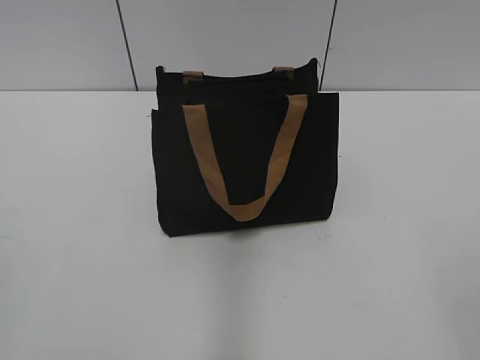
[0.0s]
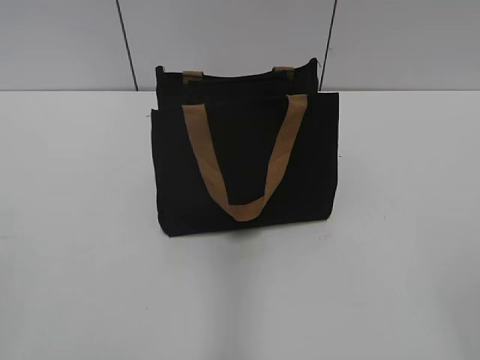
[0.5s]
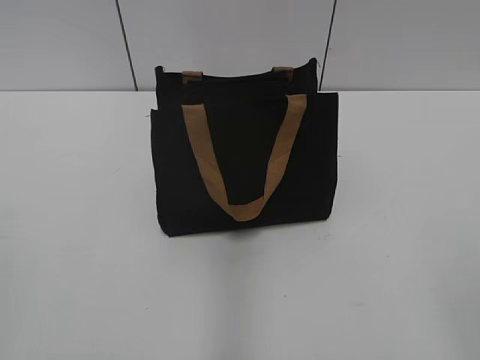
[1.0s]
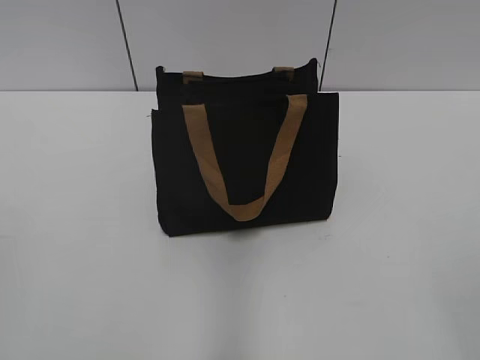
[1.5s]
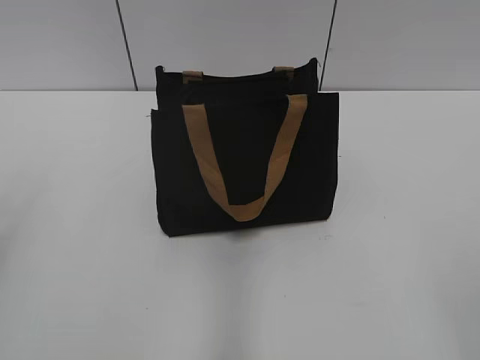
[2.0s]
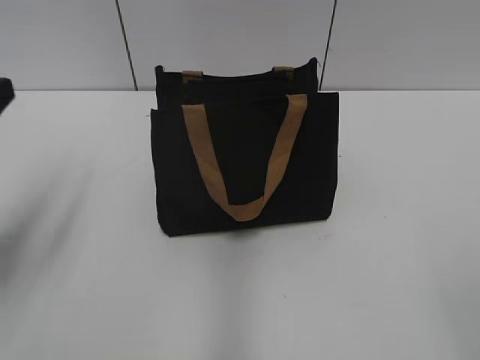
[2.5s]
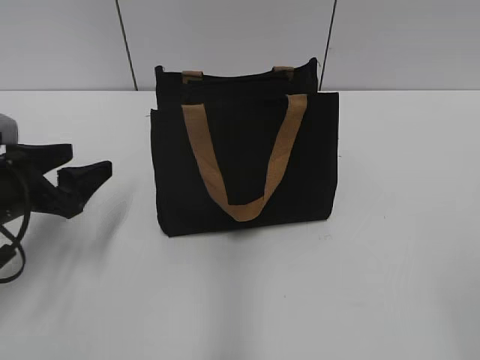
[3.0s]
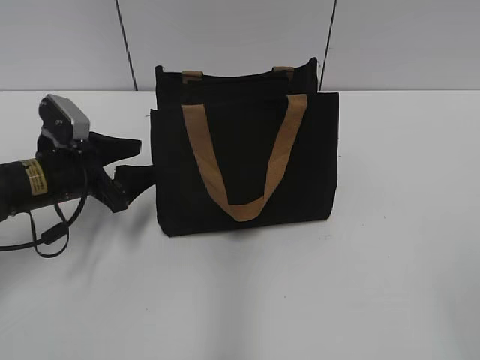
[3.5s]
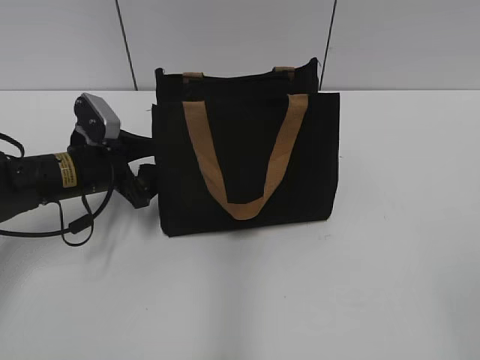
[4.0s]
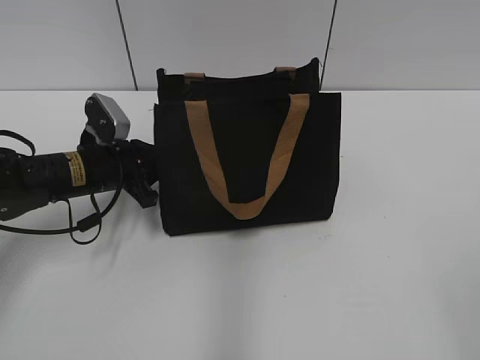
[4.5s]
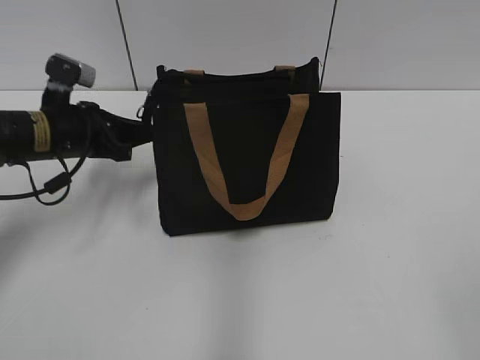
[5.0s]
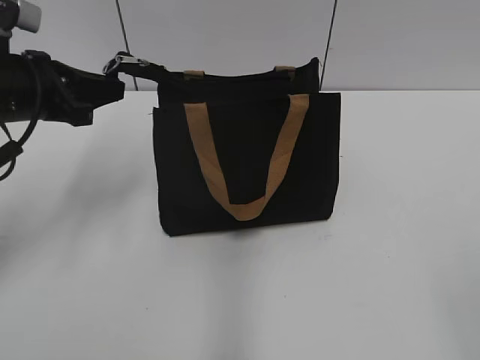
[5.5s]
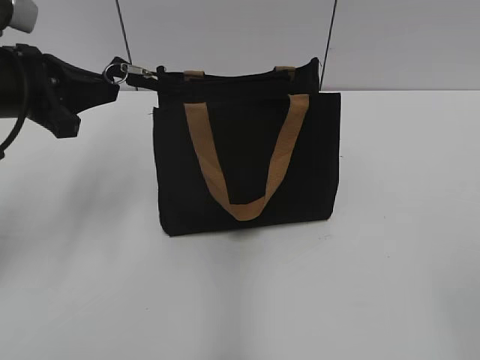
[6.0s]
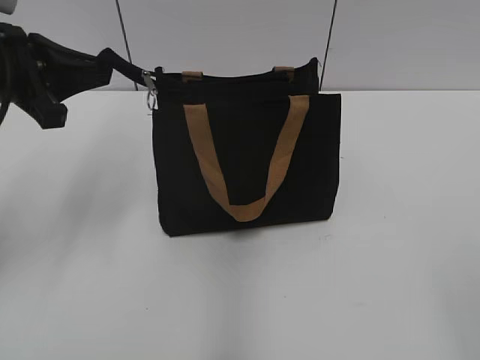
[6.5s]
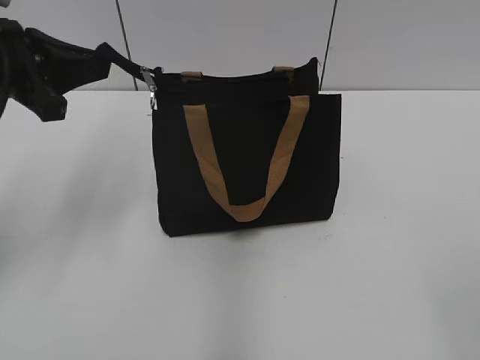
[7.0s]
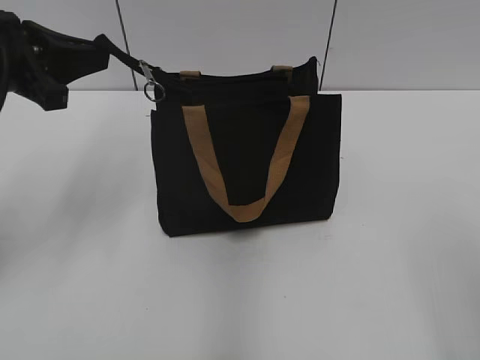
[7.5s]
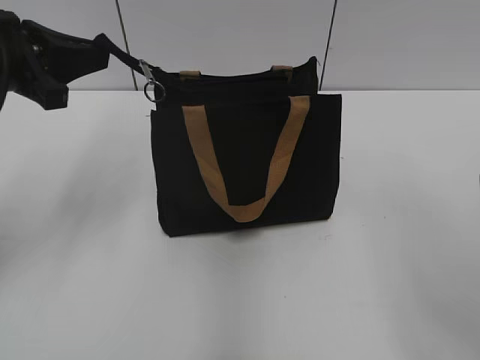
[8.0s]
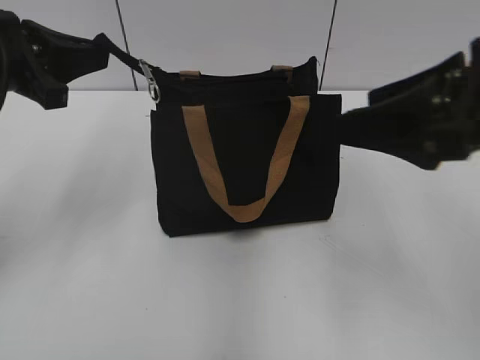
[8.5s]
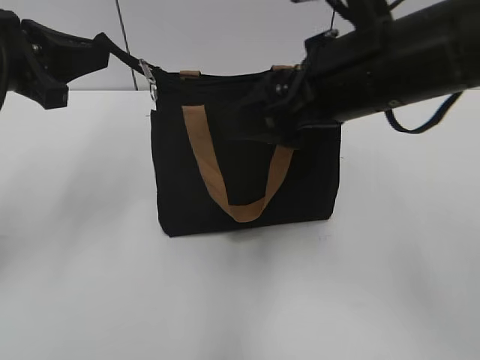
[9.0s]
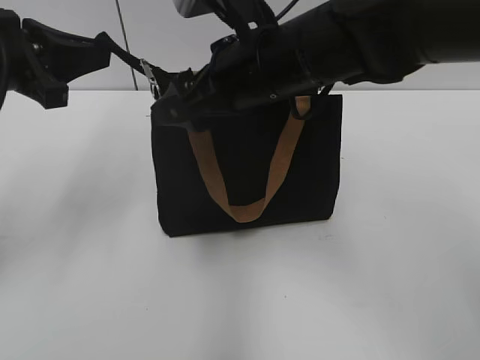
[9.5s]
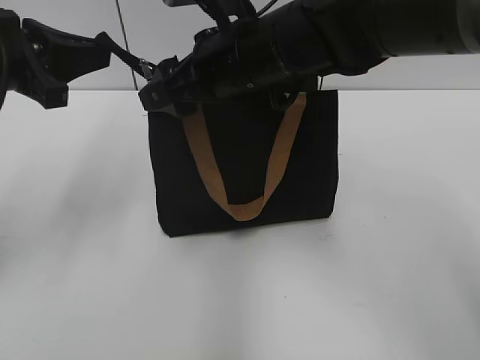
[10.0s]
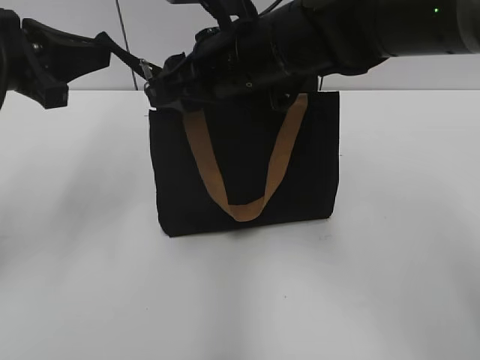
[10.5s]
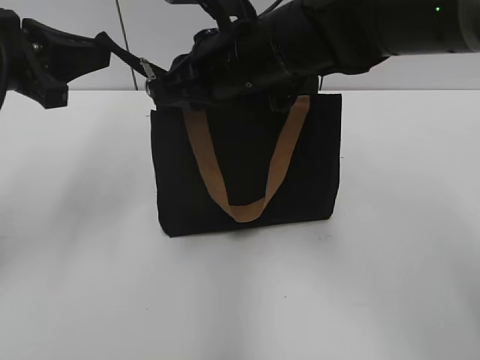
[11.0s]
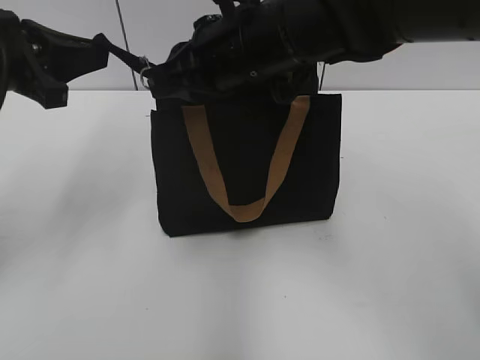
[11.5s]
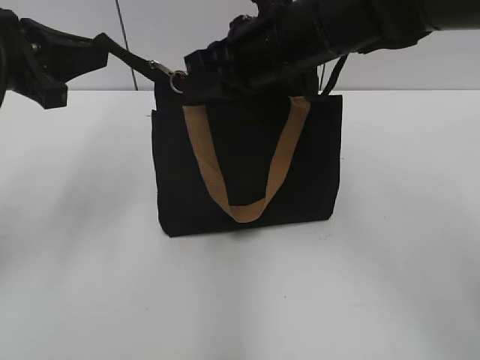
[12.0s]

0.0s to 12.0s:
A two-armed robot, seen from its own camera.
2.0s to 4.0s: The left gripper travels forward, downward and to the right by approximately 35 cm, and opens.
4.0s to 6.0s: The left gripper heads upward, covering some 15 cm, and closes up.
6.0s to 8.0s: The right gripper goes about 10 cm forward.
8.0s to 10.0s: The right gripper heads forward and to the left, covering approximately 35 cm.
10.0s to 12.0s: The right gripper closes.

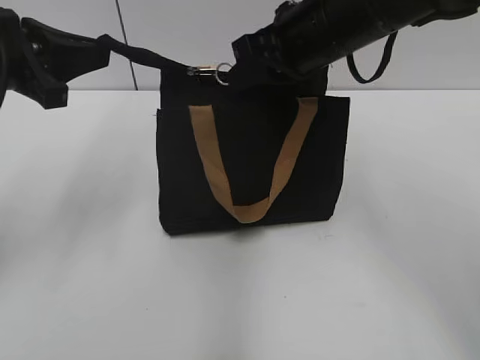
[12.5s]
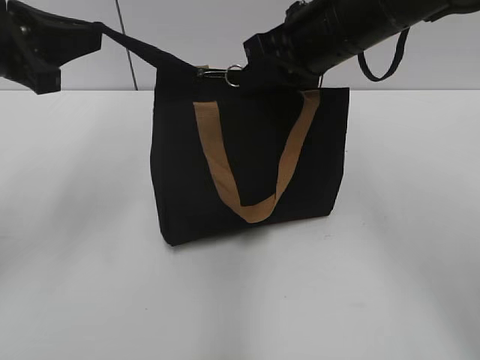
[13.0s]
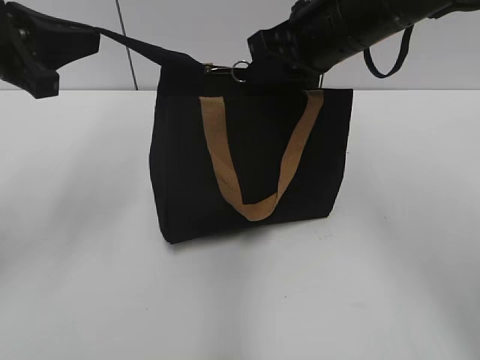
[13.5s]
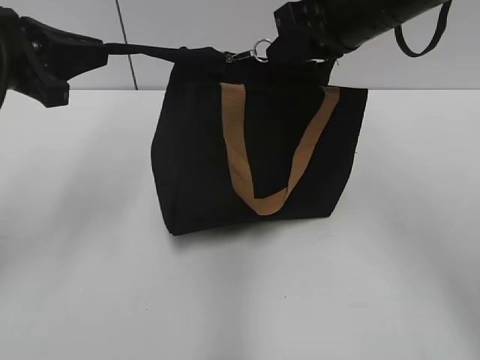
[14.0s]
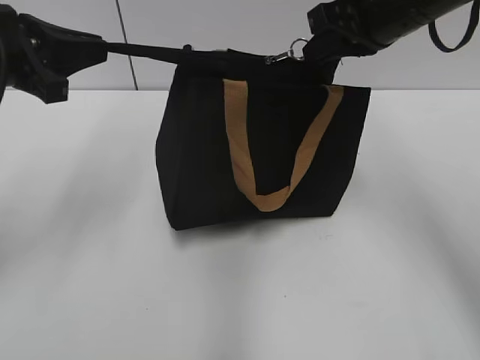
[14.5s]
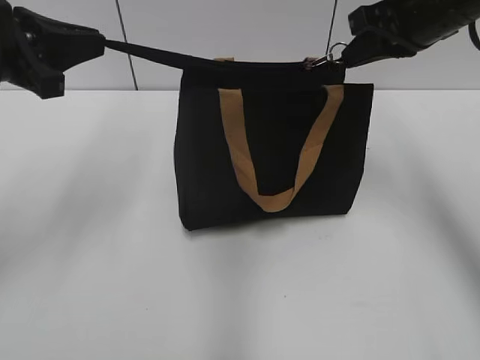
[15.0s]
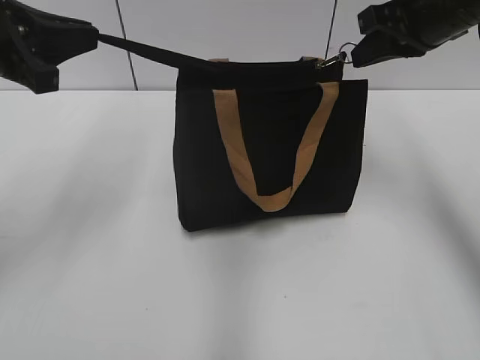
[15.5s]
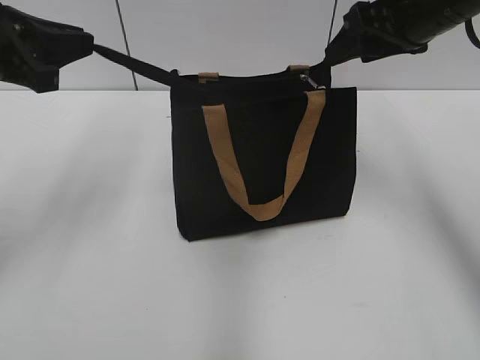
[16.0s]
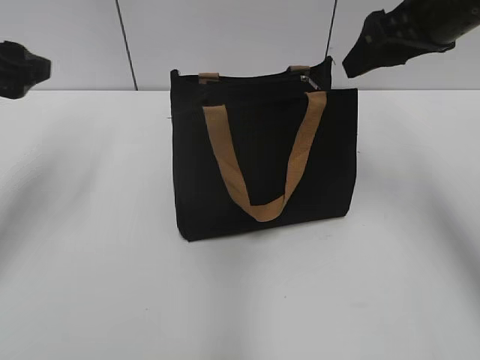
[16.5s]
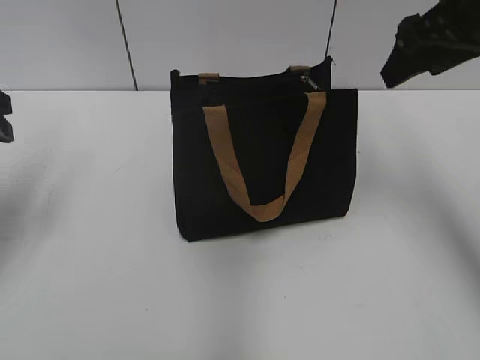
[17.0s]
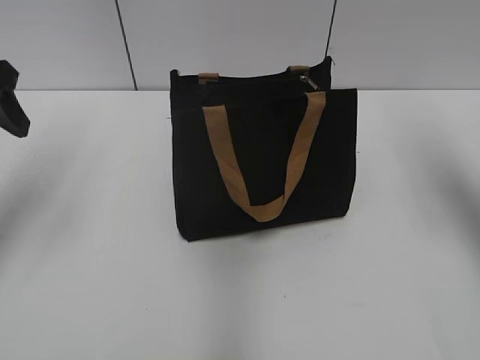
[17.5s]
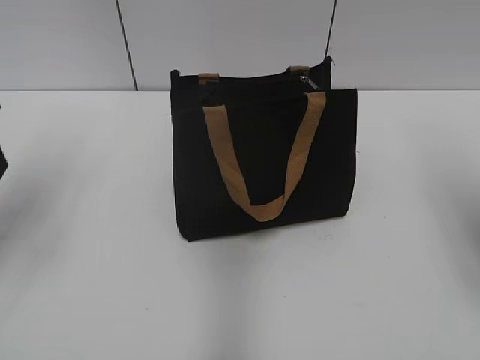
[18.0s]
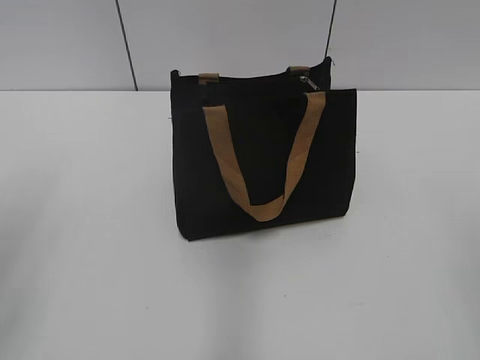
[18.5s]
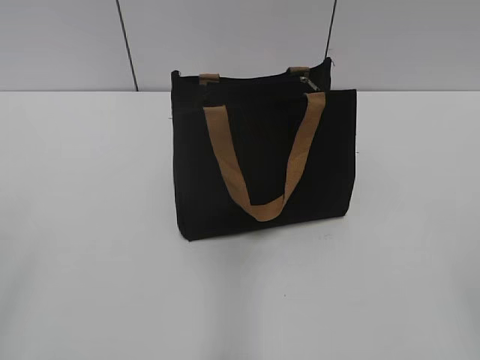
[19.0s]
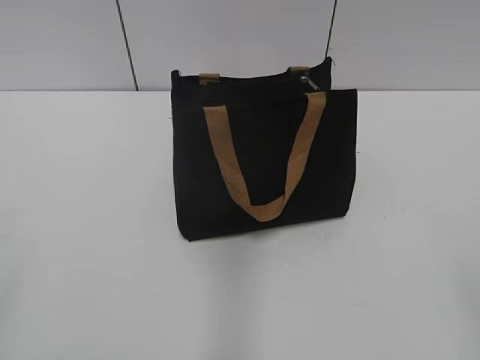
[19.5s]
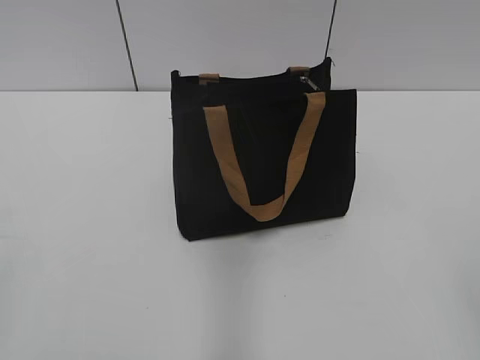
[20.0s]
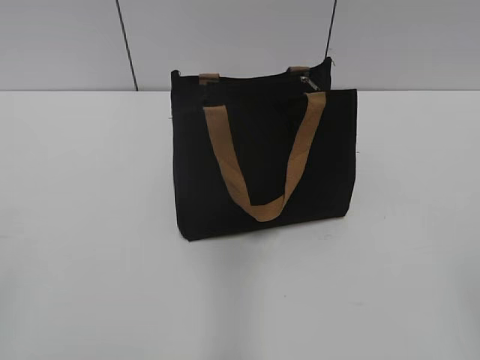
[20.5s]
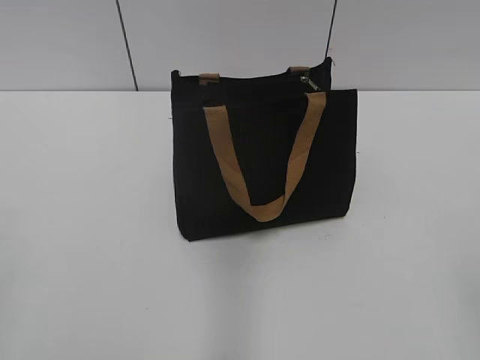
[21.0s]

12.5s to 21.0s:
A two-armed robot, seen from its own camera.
Step, 12.5s to 15.5s: Zip up the bag with your right hand.
12.5s to 14.5s: The right gripper moves to the right, approximately 5 cm.
14.5s to 16.5s: The right gripper opens up, while the left gripper opens up.
16.5s to 19.0s: The two grippers go roughly 30 cm backward.

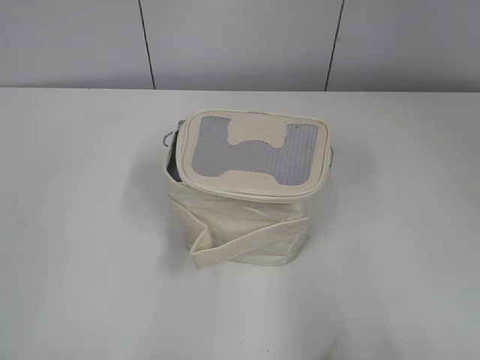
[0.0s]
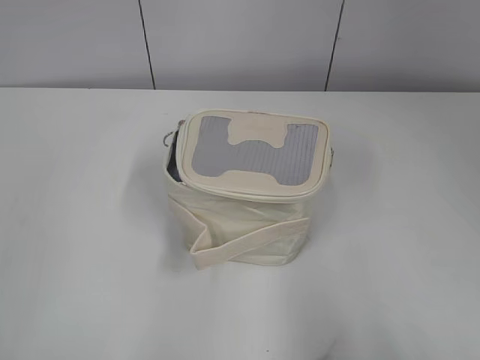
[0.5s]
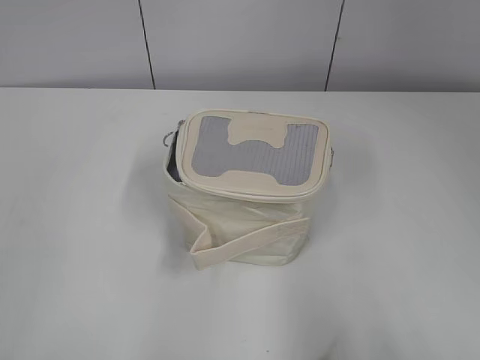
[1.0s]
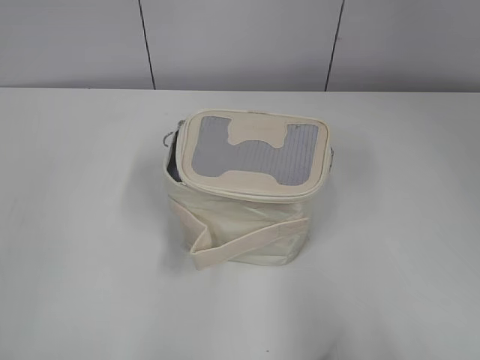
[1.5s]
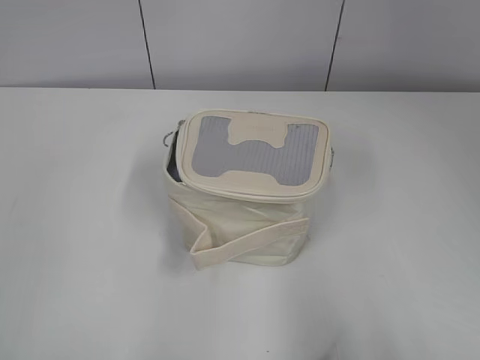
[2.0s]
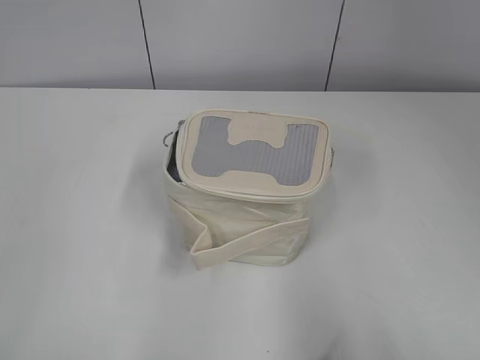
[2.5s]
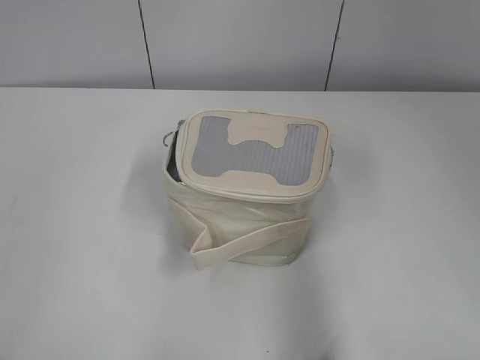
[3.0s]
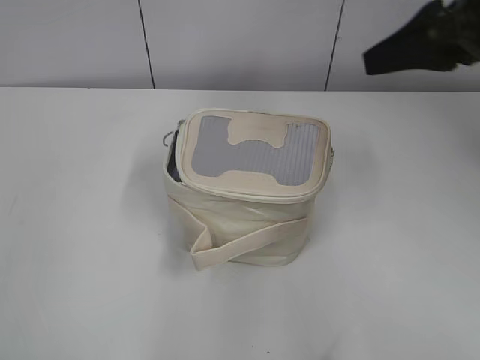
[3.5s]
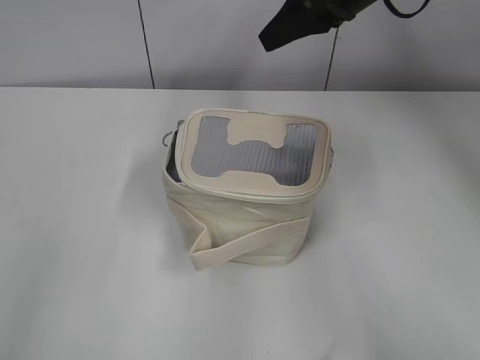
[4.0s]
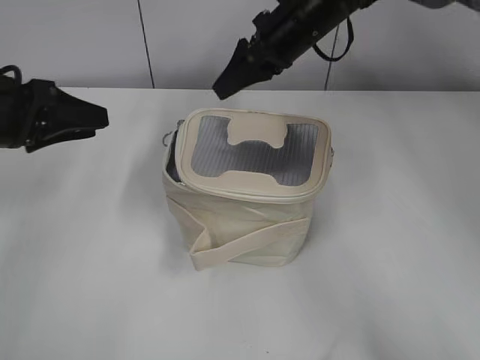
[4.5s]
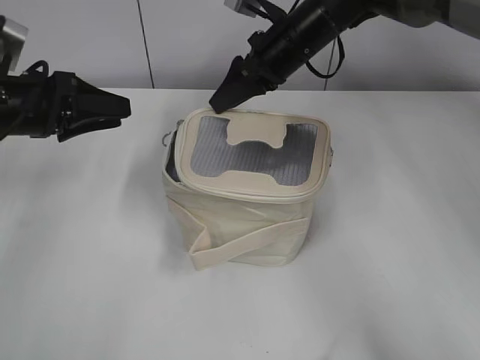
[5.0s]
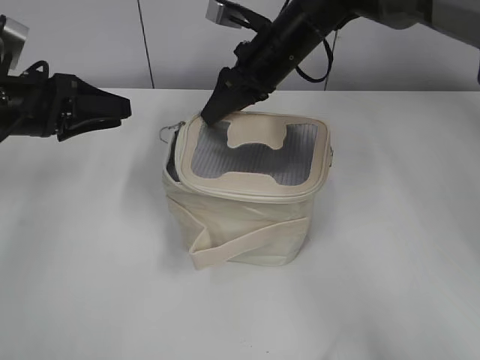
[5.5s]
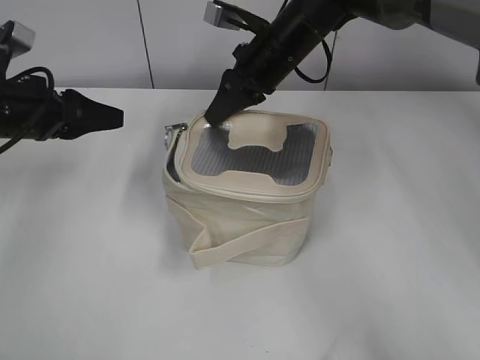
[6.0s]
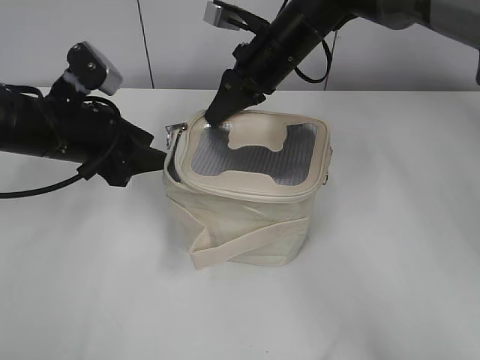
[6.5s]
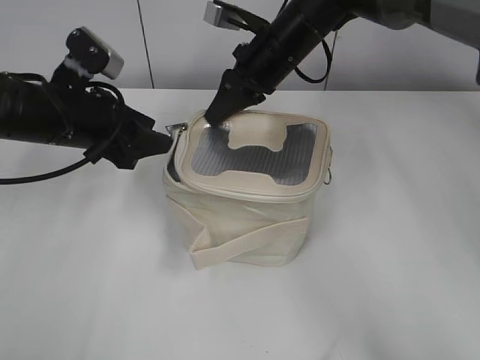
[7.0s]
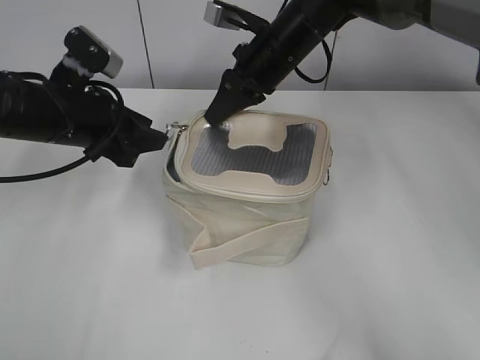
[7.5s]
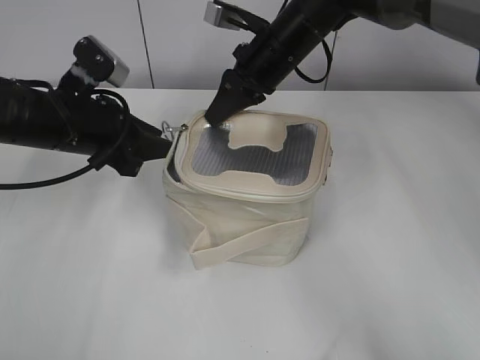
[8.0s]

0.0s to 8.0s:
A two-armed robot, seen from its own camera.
2.0s to 4.0s: The left gripper heads forward, covering approximately 10 cm. Meanwhile the right gripper moves forward, approximately 40 cm.
4.0s to 6.0s: The left gripper travels forward and downward by roughly 25 cm; the right gripper shifts approximately 15 cm downward and to the left, and closes.
6.0s to 8.0s: The left gripper moves to the right, roughly 5 cm.
